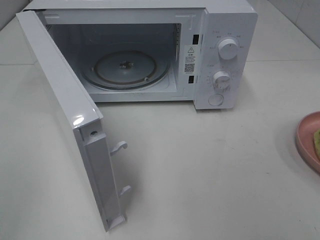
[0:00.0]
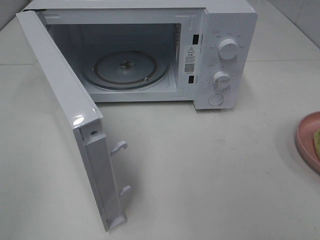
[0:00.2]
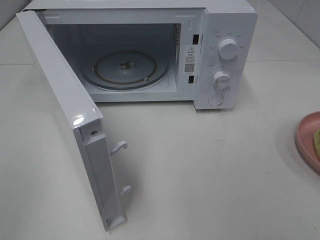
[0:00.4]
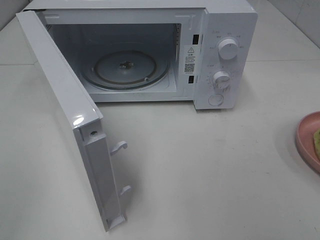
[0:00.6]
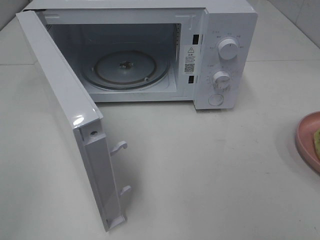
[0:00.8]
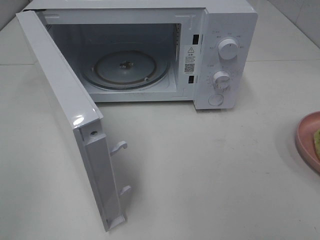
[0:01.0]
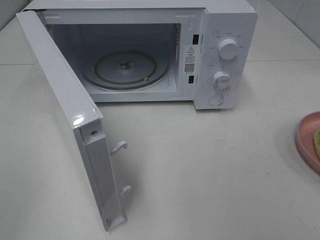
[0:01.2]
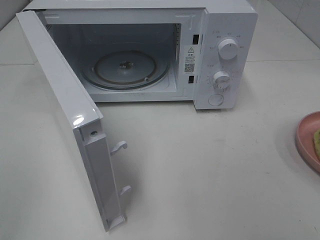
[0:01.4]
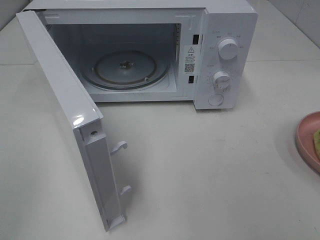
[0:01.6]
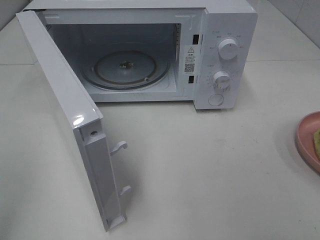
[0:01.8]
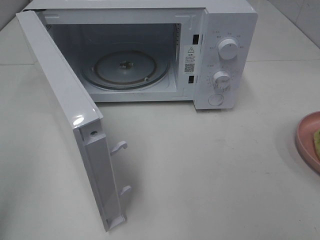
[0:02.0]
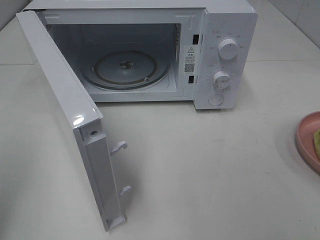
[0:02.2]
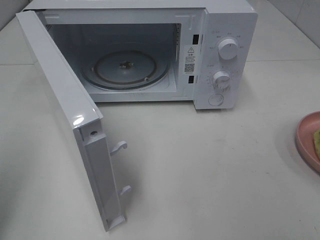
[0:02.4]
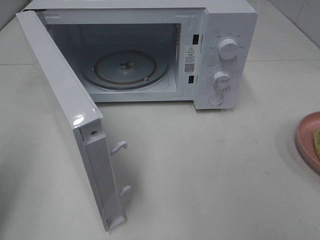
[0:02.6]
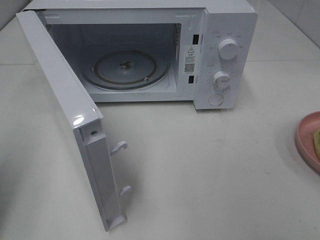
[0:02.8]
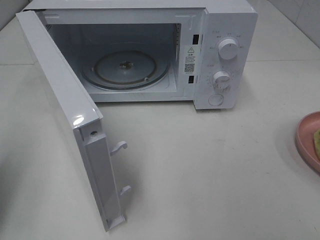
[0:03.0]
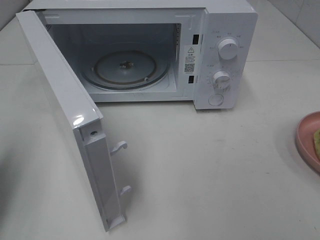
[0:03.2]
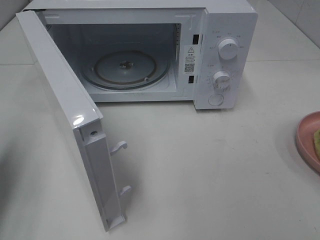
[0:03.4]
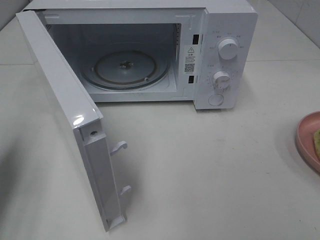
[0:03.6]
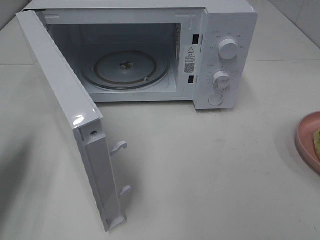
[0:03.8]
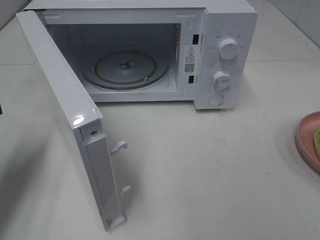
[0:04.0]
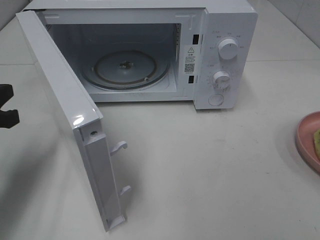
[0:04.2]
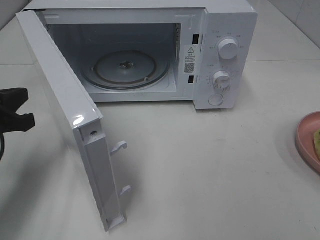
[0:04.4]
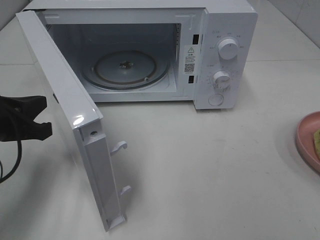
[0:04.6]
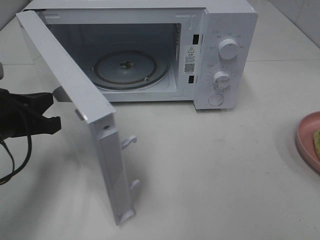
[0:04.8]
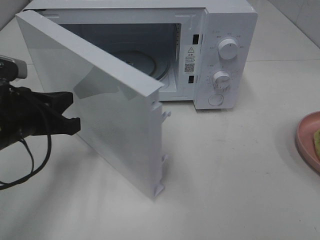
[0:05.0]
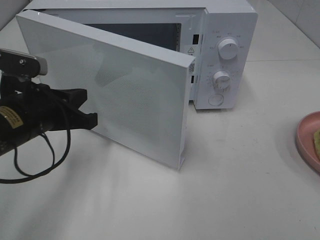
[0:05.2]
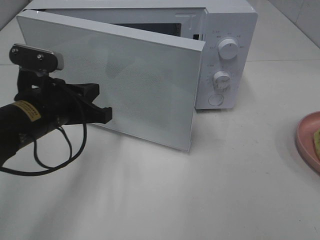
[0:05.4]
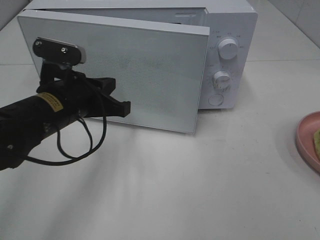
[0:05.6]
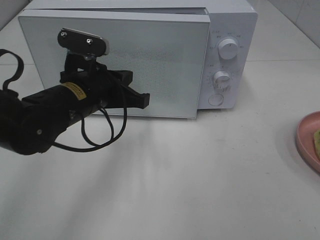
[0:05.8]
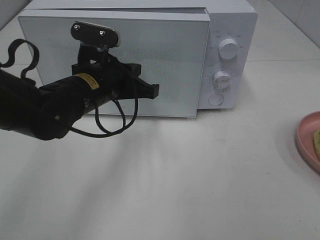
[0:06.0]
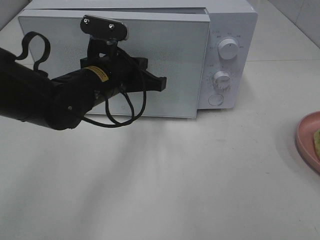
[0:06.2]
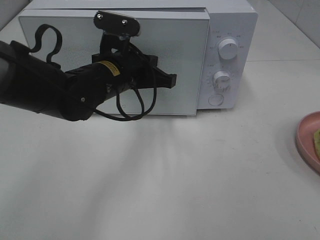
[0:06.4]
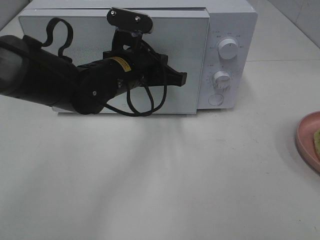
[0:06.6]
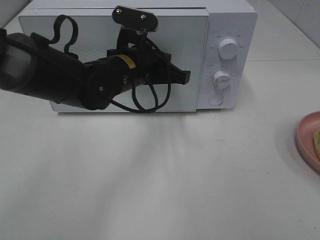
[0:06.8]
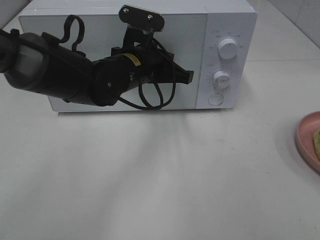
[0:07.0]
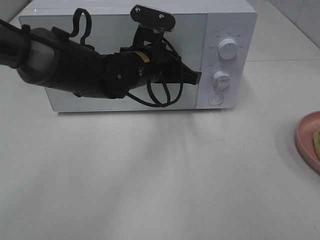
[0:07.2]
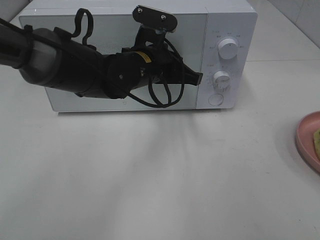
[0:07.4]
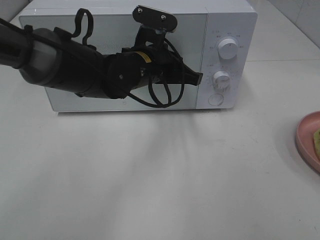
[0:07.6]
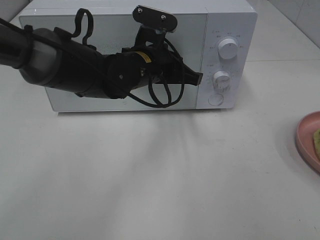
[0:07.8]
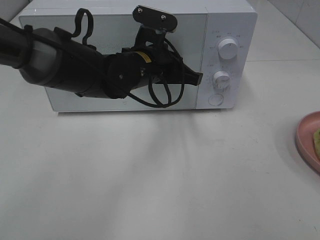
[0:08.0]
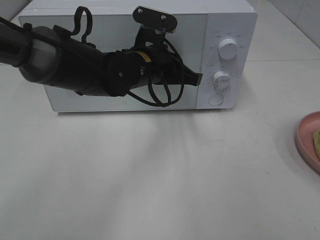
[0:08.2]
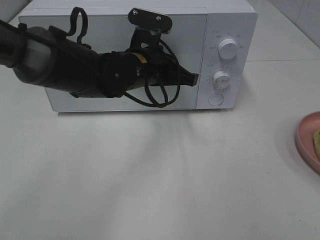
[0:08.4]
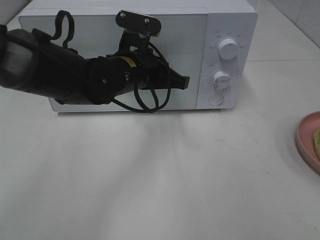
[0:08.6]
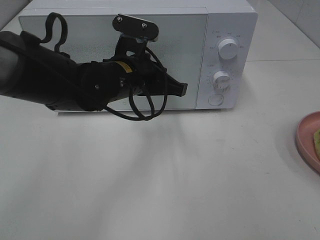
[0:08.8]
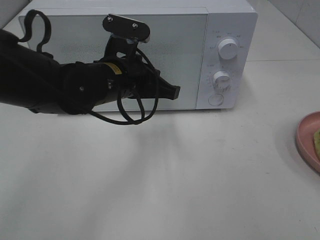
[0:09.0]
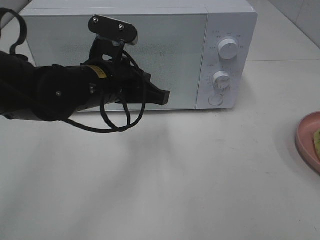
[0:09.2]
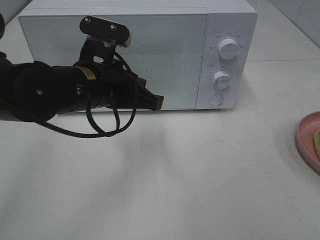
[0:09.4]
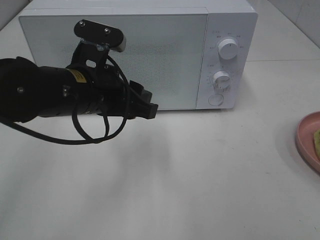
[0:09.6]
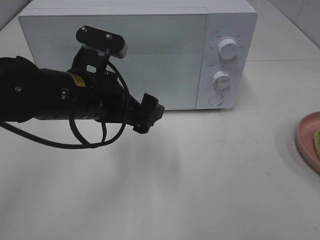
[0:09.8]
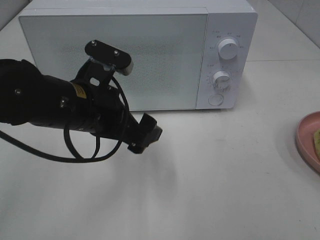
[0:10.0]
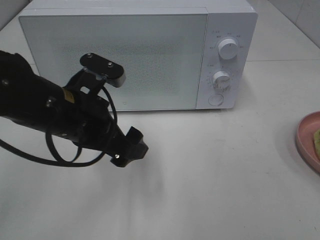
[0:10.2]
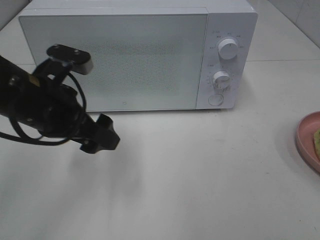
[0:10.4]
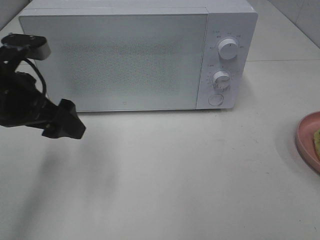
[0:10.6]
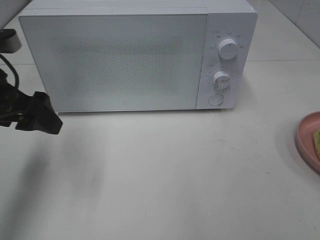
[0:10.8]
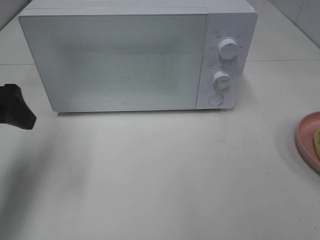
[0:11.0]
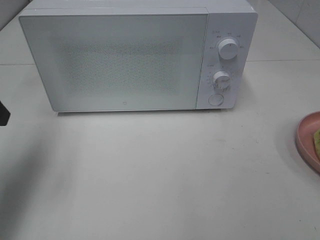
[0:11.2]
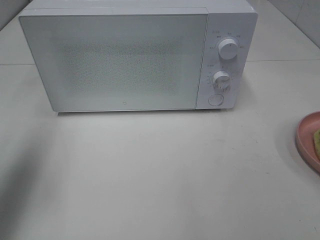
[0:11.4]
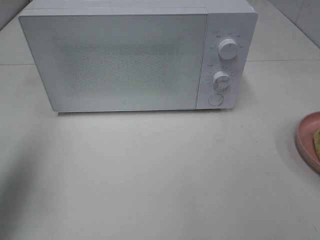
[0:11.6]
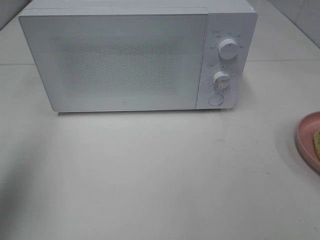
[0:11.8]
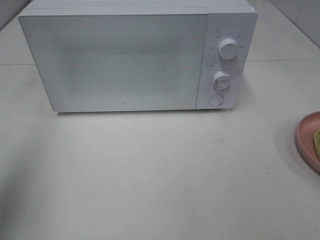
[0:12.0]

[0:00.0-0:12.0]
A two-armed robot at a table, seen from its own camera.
Task of the whole recording: Heat Sandwich.
Step, 0:00.0 to 0:08.8: Left hand: close the microwave door.
0:01.6 to 0:03.0: The left gripper goes roughly 15 cm forward and downward, and closes up.
0:03.0 to 0:04.4: The left gripper heads forward, downward and to the right, covering roughly 15 cm.
0:04.4 to 0:06.0: The left gripper moves to the right and forward, roughly 20 cm.
0:06.0 to 0:07.6: The left gripper is displaced to the right and forward by approximately 10 cm.
0:07.6 to 0:09.0: The left gripper is displaced backward by some 5 cm.
0:09.0 to 0:10.4: The left gripper is displaced to the left and backward by roughly 10 cm, and opens up.
0:10.4 to 0:12.0: The left gripper heads to the left, upward and backward, covering about 20 cm.

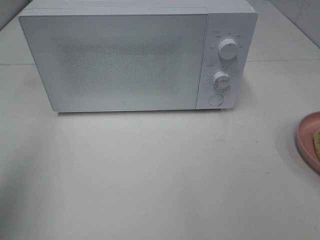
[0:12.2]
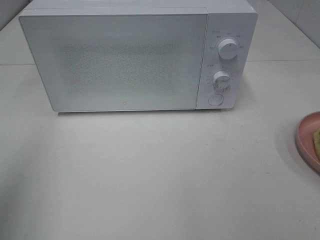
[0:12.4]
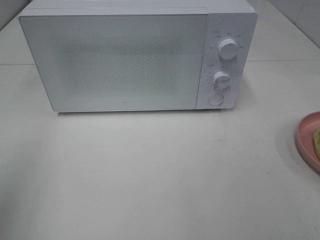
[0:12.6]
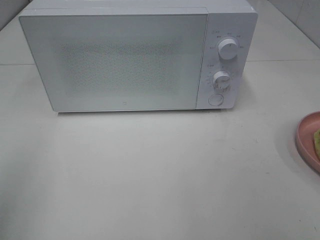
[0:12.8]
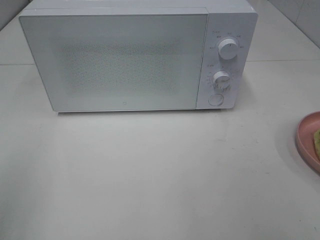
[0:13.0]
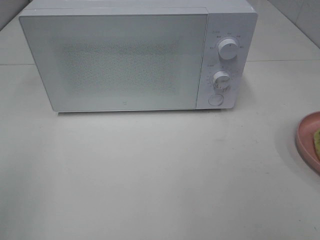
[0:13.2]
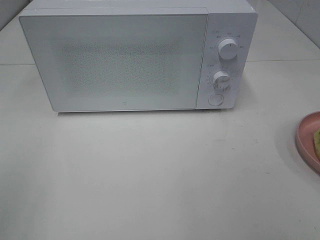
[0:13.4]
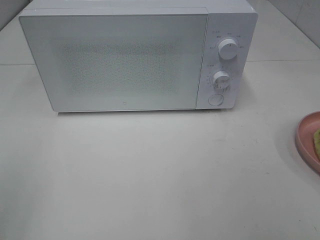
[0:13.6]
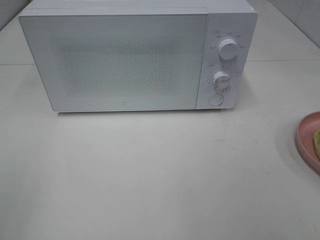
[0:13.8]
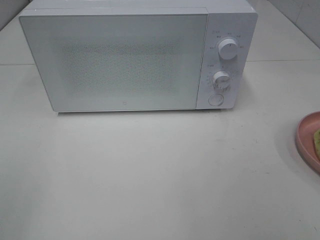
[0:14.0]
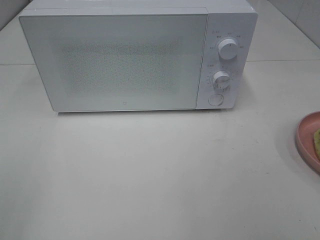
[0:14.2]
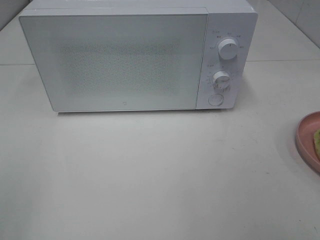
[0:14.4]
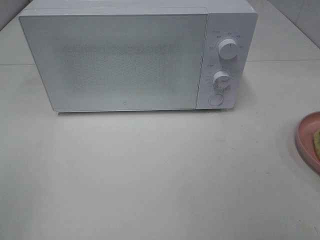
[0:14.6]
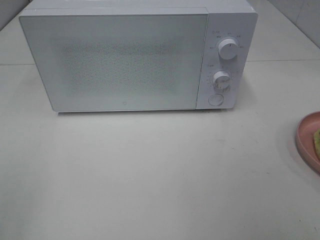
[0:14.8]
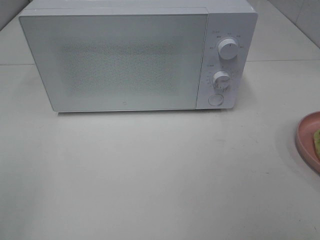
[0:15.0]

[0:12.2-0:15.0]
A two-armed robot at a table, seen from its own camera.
Task of the whole recording: Heat Sandwich.
0:12.2 to 0:13.6: The left gripper goes some 10 cm backward and downward.

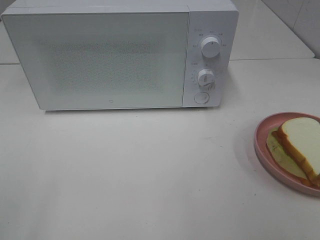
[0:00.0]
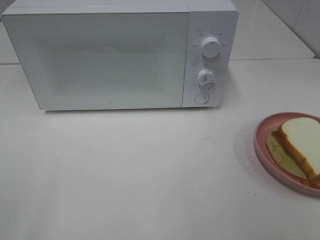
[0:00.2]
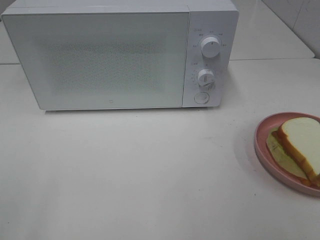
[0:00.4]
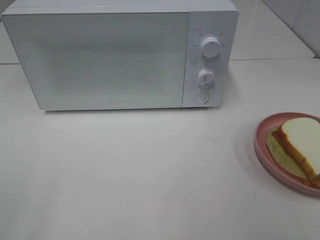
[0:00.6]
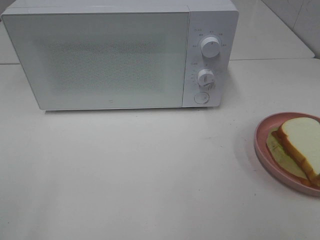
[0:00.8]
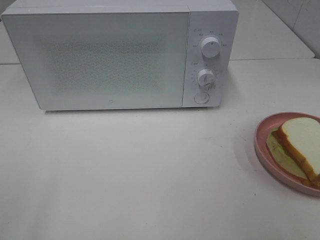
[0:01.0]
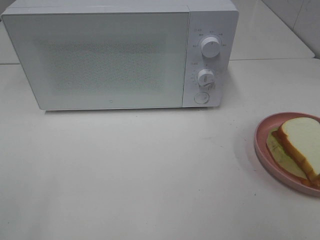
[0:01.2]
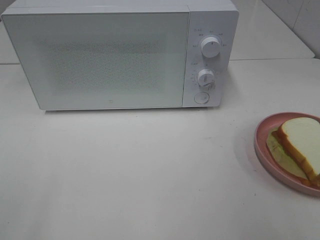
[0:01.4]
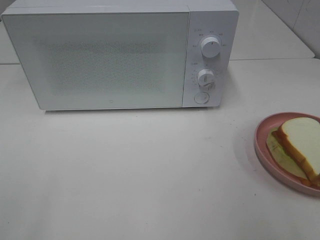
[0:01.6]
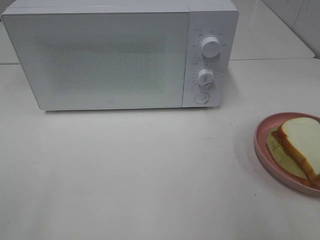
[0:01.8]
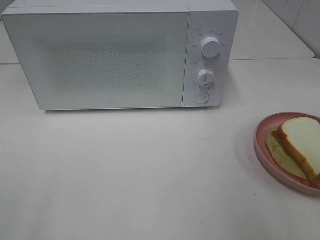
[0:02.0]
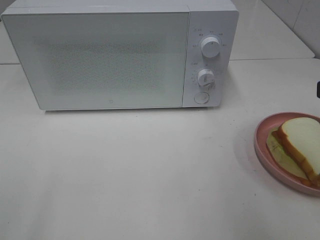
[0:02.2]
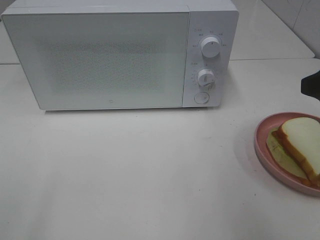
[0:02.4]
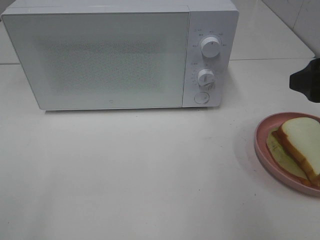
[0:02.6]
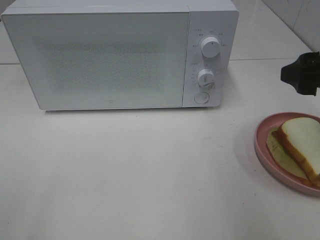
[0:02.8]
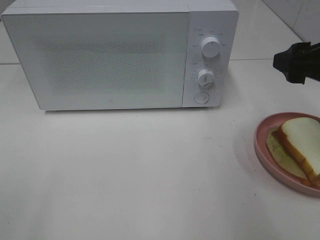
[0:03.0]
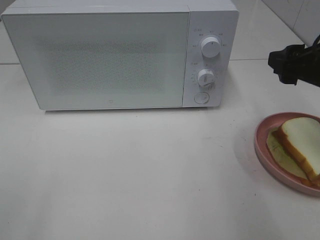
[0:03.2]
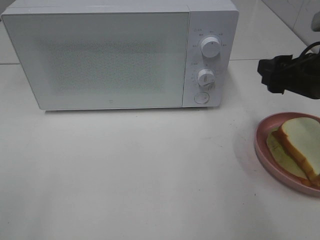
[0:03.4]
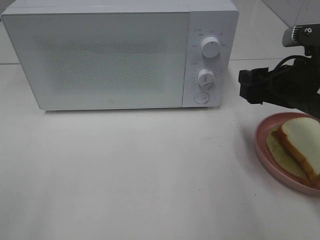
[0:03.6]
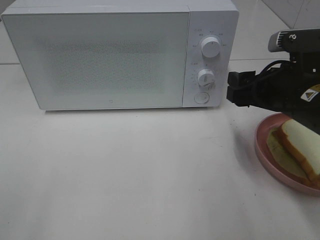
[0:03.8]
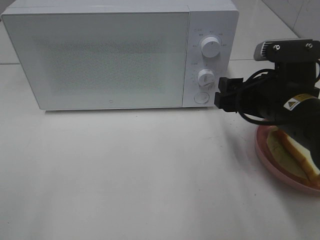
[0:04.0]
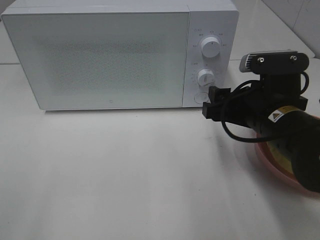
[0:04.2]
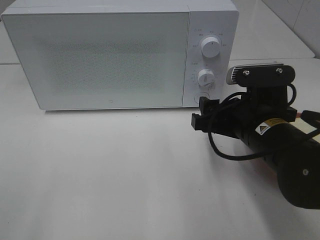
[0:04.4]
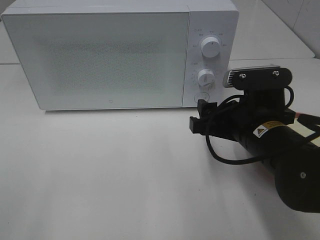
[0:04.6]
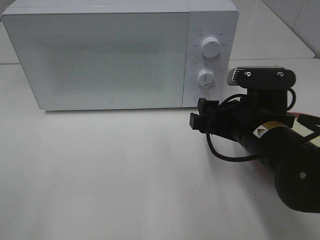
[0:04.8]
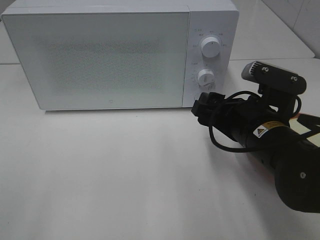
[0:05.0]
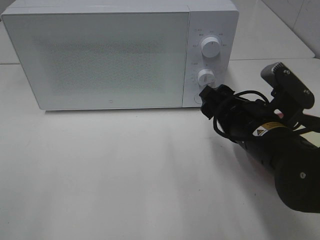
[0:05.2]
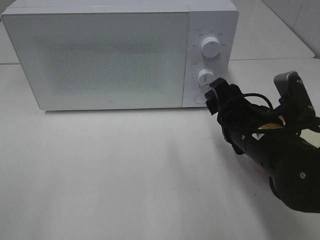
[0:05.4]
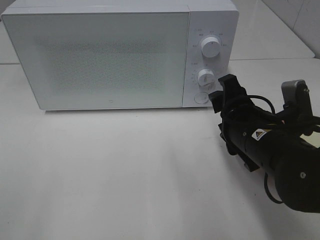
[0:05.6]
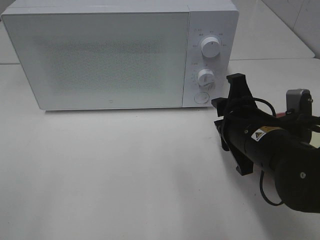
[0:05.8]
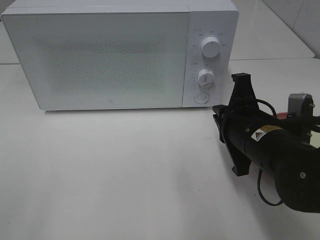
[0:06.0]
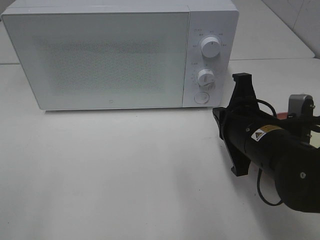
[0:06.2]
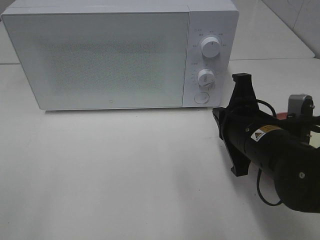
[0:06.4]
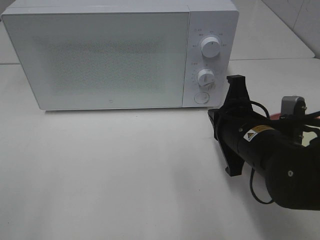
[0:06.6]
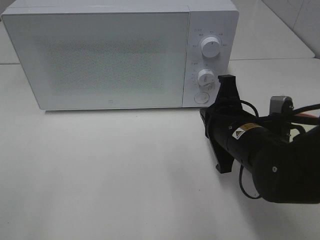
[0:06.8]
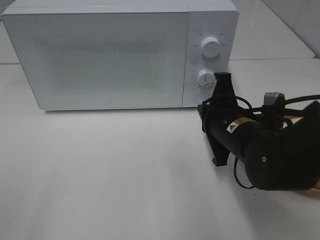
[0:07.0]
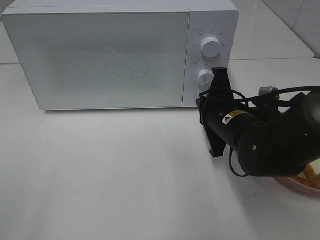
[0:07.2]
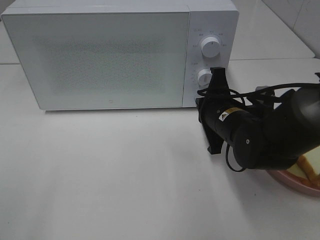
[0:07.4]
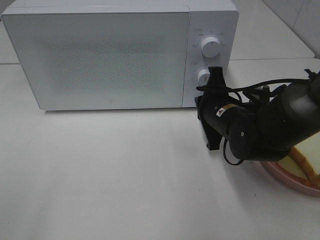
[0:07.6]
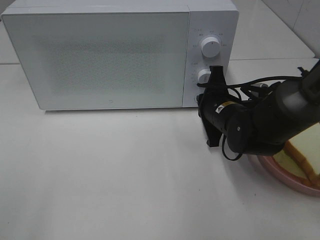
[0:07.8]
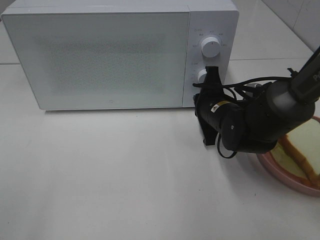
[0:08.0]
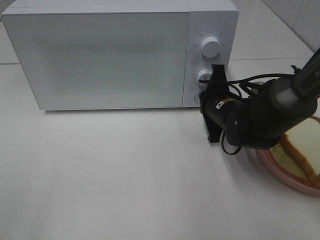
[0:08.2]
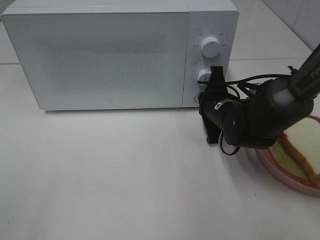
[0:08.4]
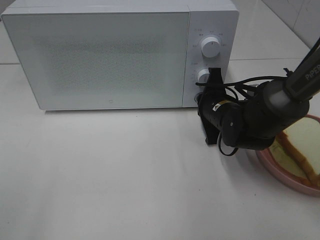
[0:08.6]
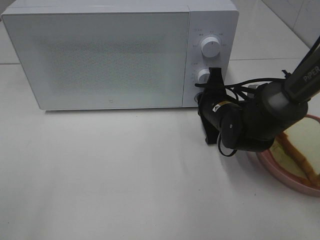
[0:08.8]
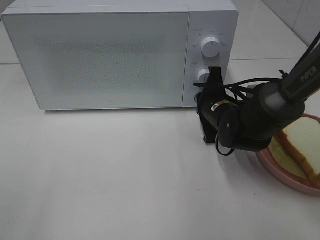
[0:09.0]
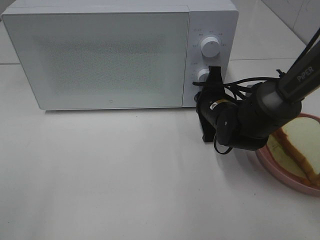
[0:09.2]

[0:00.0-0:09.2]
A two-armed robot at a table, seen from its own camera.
Task of the whole recording: Heat Sandwich.
0:01.6 to 0:03.0: The right gripper travels forward by some 15 cm.
0:03.0 to 0:04.6: The right gripper heads to the left and downward, covering about 15 cm.
0:04.6 to 0:06.2: The right gripper closes.
0:06.2 to 0:07.6: The right gripper travels forward by roughly 10 cm.
0:07.6 to 0:09.2: The grippers move only a little.
